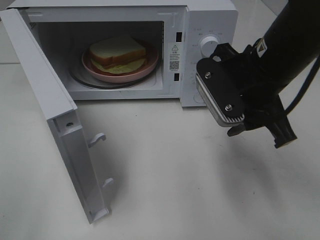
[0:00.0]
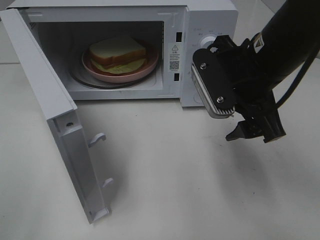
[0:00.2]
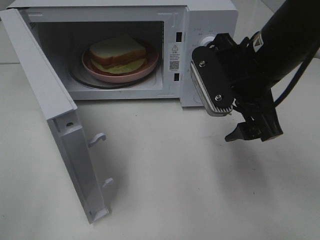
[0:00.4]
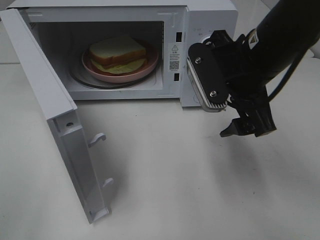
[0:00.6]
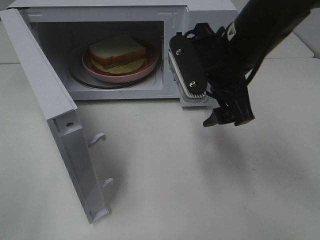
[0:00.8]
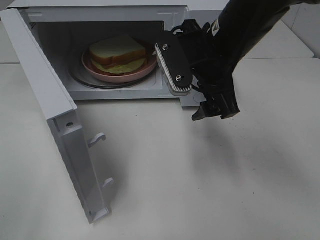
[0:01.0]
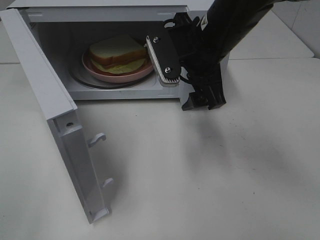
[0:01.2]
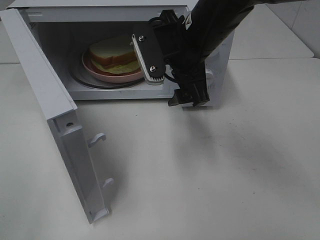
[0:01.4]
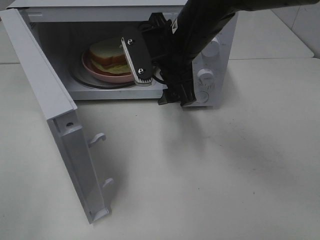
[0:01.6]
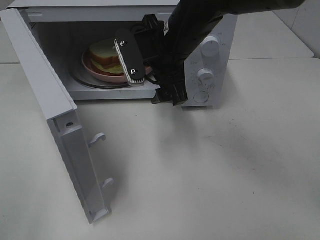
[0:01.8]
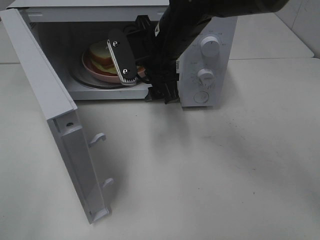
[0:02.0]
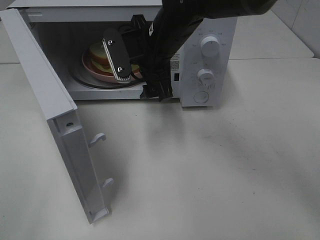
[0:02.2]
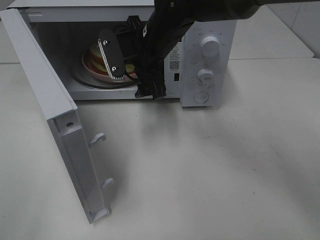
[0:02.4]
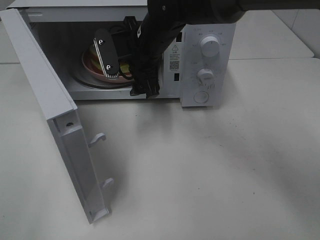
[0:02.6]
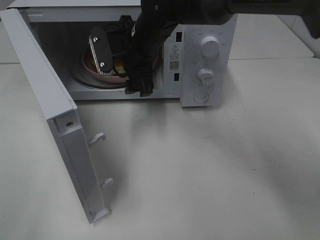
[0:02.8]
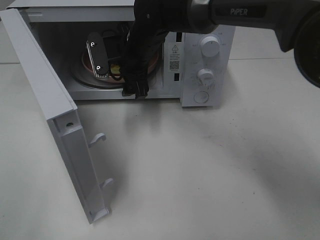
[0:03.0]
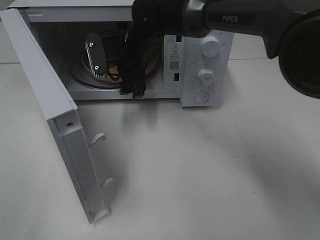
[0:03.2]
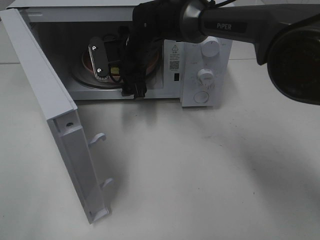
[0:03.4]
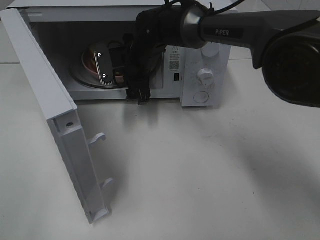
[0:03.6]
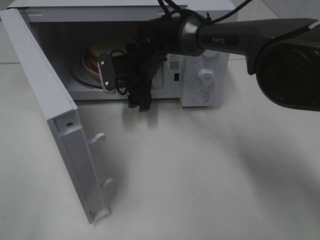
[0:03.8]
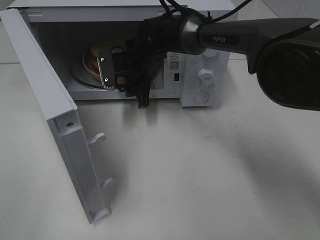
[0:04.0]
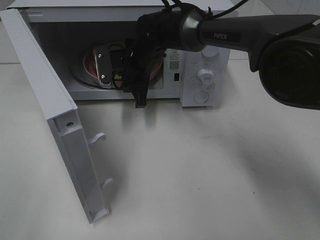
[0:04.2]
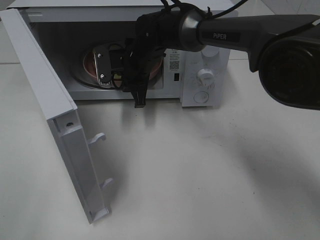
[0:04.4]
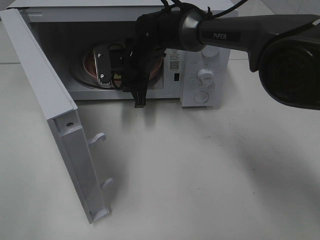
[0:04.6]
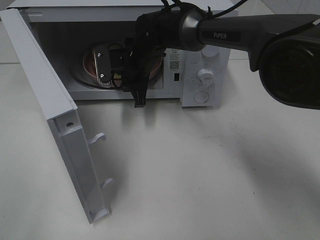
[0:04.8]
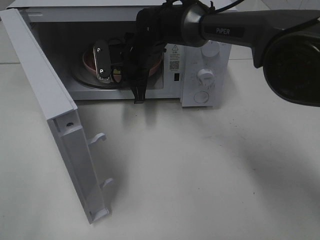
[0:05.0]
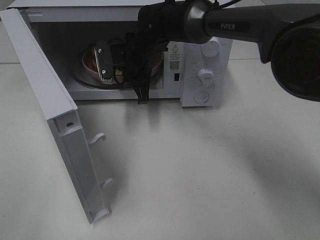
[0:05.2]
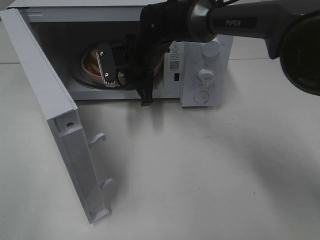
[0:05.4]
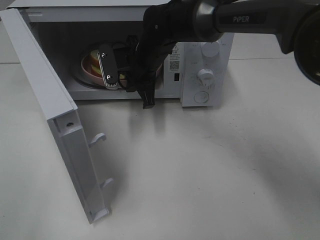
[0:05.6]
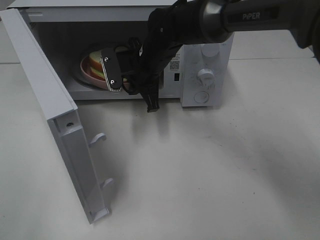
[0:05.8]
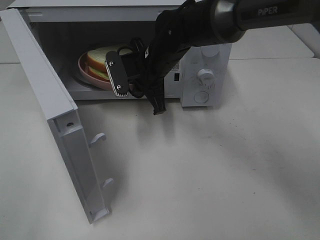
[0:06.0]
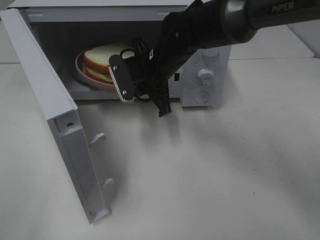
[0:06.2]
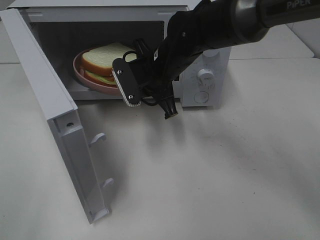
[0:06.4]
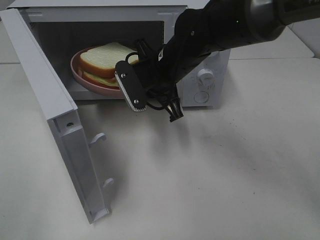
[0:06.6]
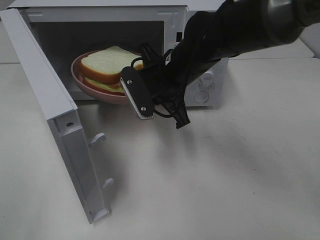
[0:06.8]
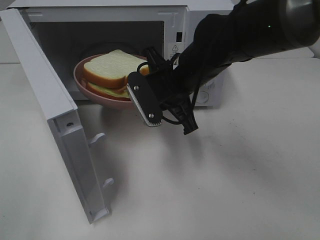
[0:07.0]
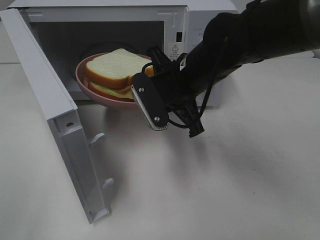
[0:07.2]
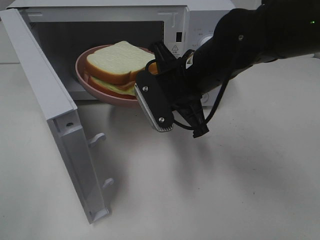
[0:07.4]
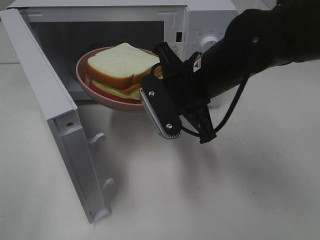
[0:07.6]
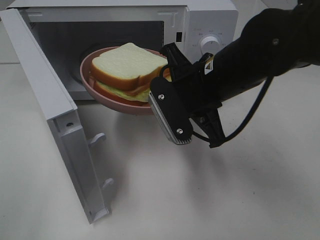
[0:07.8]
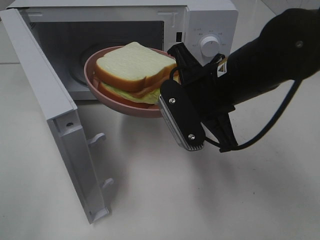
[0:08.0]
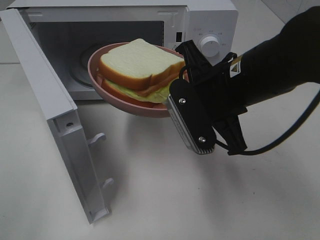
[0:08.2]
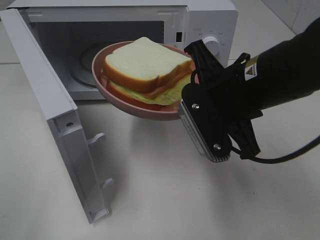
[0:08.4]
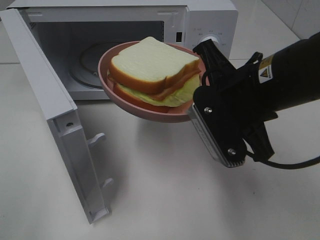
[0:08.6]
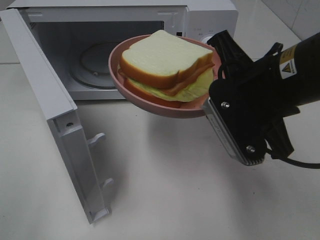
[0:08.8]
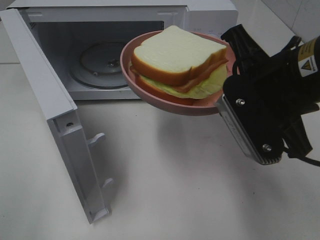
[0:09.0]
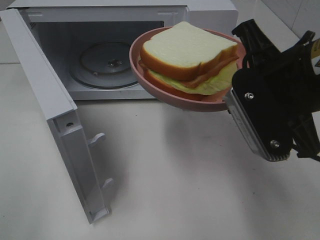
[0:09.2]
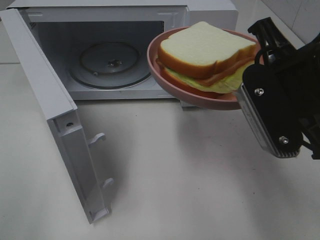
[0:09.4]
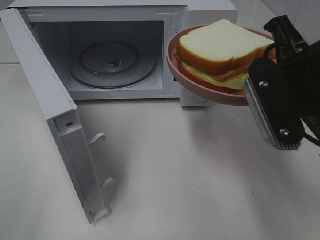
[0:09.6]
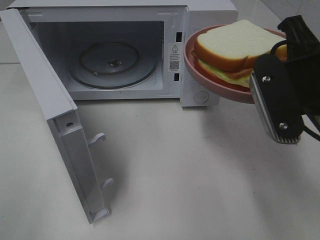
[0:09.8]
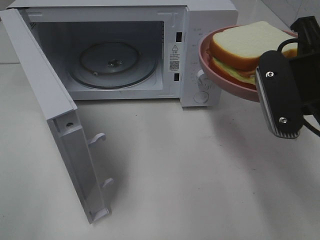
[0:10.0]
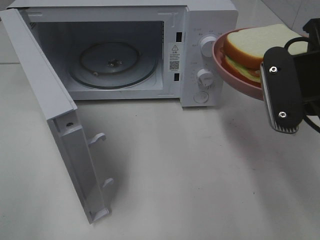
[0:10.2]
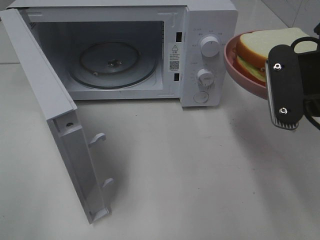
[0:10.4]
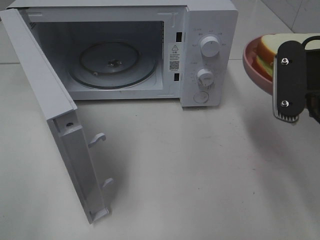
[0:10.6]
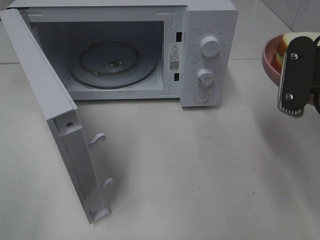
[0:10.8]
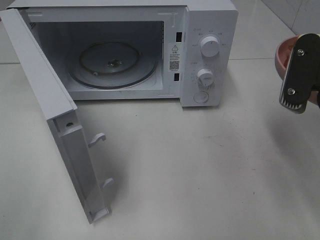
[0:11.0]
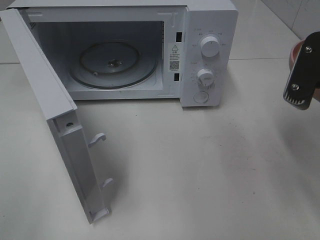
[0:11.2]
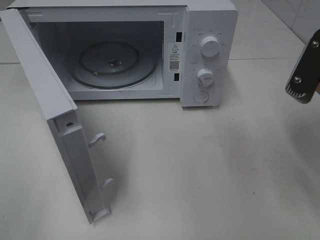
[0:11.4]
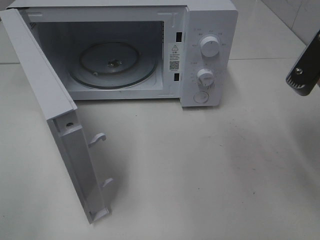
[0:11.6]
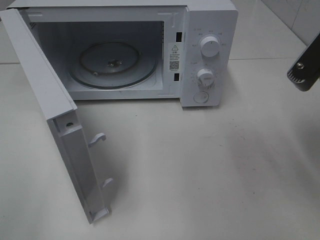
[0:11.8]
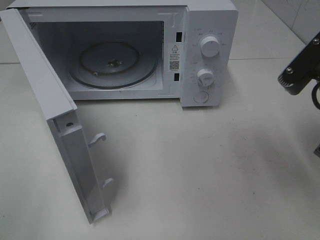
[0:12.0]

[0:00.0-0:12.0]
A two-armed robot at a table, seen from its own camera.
Task of the whole recording: Heat Sandwich.
Step, 0:00.0 to 0:04.4: Right hand: grab the plate with the sandwich.
0:00.0 to 0:01.6: The right gripper travels to the left and forward by some 10 cm.
0:01.6 to 0:03.0: The right gripper moves forward and to the left, approximately 10 cm.
0:03.0 to 0:04.4: The right gripper shifts by some 5 cm, and closes.
0:04.4 to 0:06.0: The right gripper shifts roughly 5 cm backward.
0:06.0 to 0:07.6: The right gripper moves backward and to the right, roughly 15 cm.
0:07.6 to 0:09.0: The right gripper shifts approximately 10 cm backward, to the right and upward.
0:09.0 to 0:10.4: The right gripper changes place by approximately 5 cm.

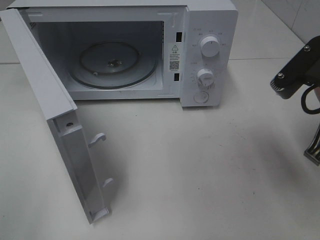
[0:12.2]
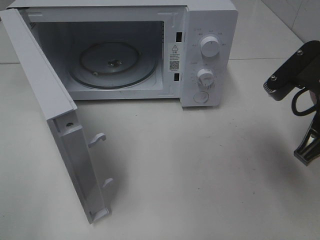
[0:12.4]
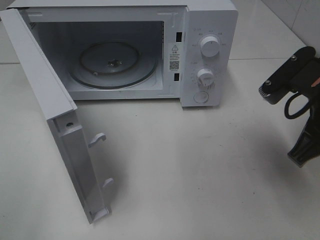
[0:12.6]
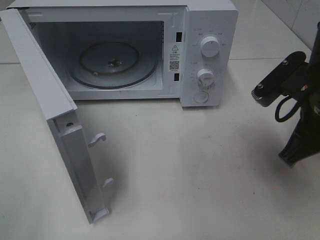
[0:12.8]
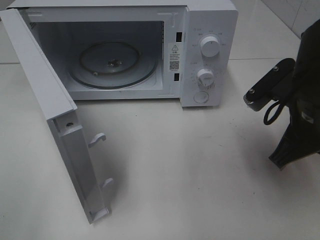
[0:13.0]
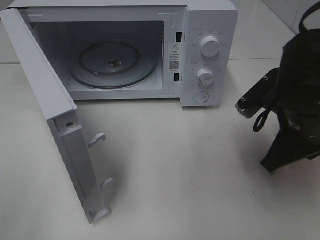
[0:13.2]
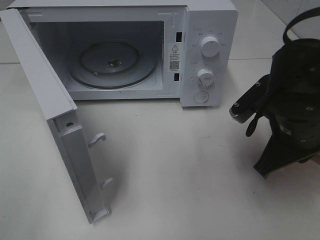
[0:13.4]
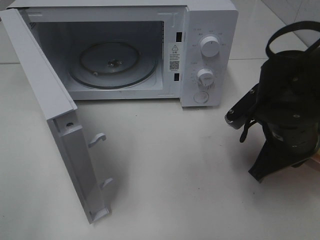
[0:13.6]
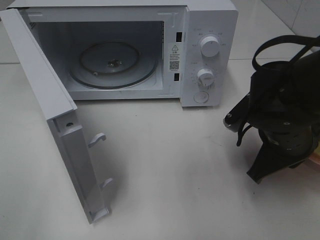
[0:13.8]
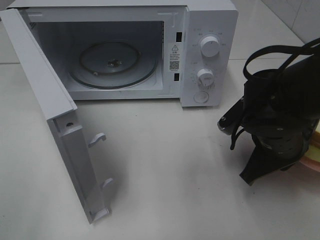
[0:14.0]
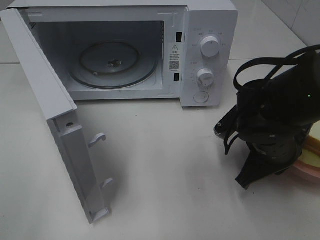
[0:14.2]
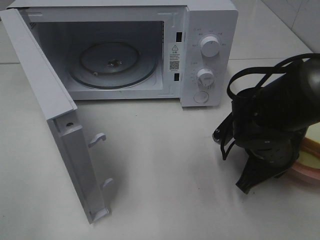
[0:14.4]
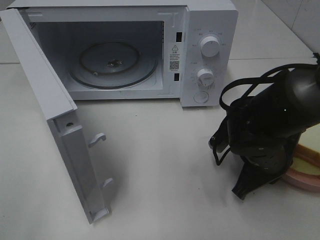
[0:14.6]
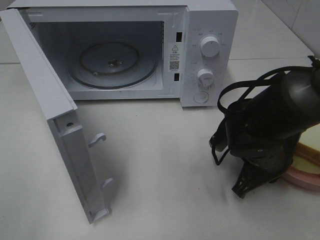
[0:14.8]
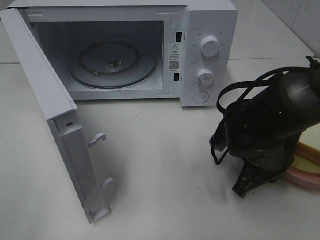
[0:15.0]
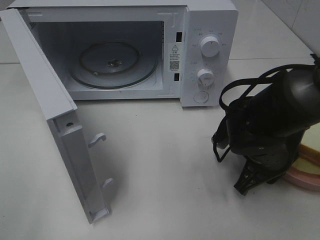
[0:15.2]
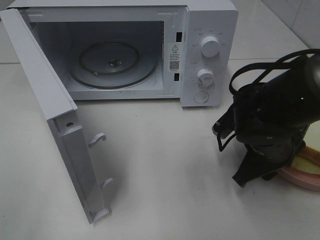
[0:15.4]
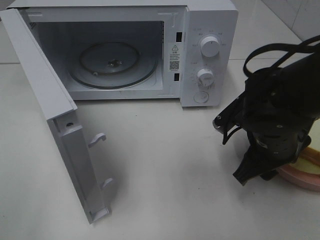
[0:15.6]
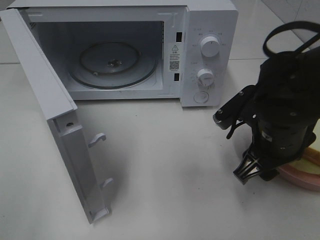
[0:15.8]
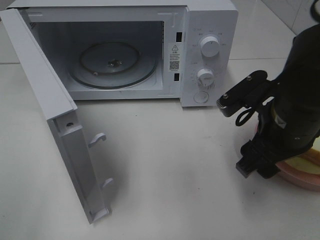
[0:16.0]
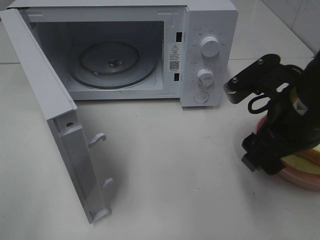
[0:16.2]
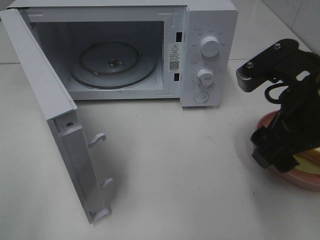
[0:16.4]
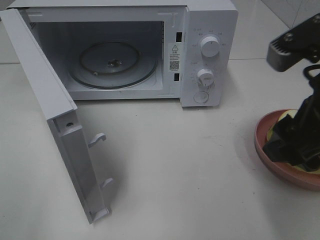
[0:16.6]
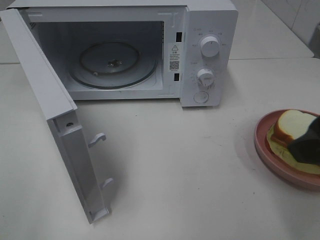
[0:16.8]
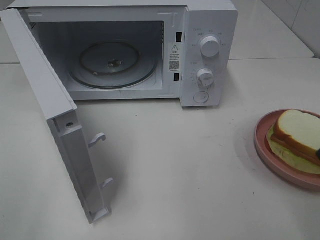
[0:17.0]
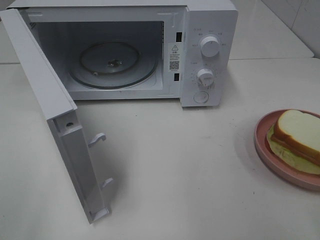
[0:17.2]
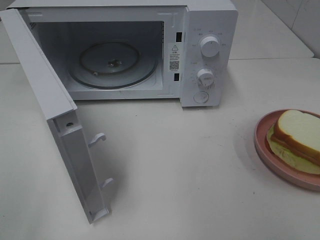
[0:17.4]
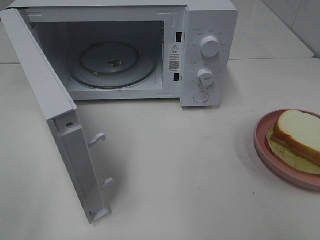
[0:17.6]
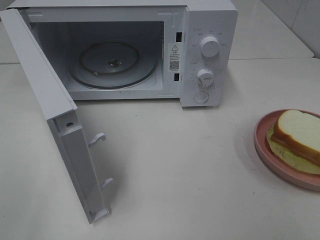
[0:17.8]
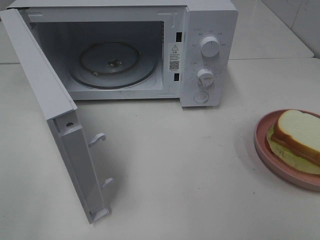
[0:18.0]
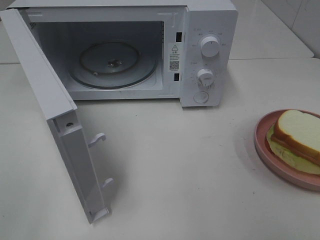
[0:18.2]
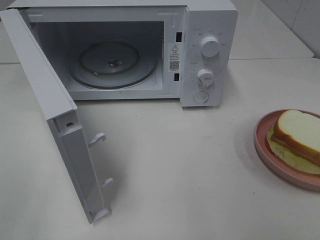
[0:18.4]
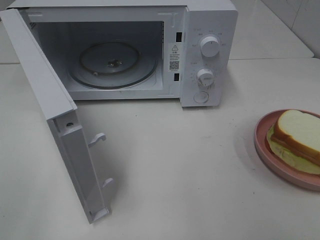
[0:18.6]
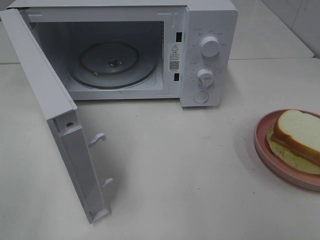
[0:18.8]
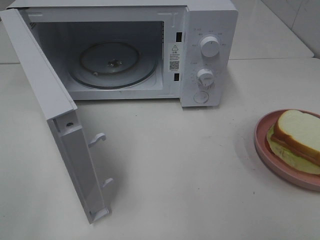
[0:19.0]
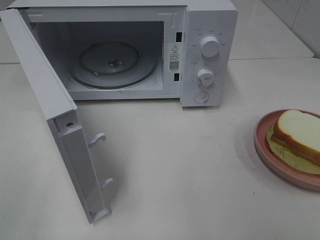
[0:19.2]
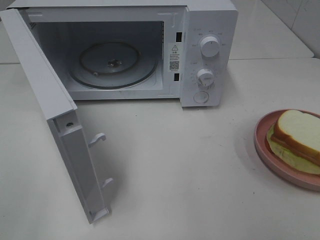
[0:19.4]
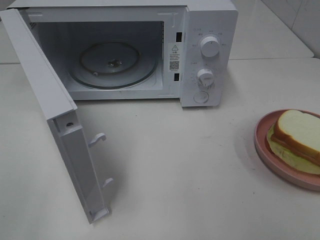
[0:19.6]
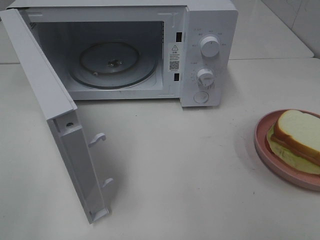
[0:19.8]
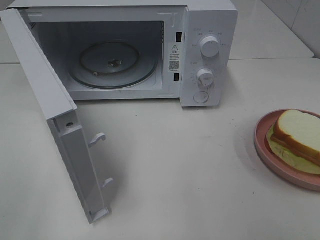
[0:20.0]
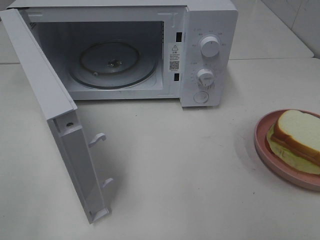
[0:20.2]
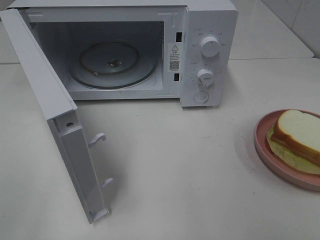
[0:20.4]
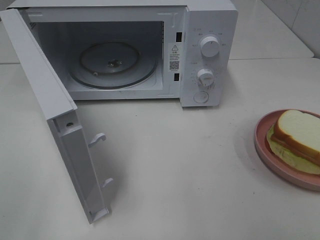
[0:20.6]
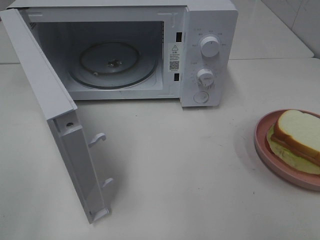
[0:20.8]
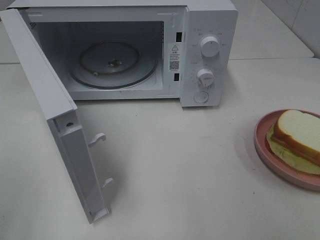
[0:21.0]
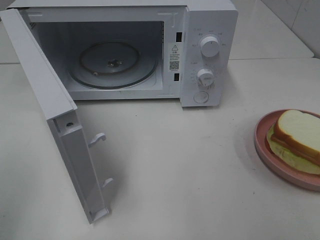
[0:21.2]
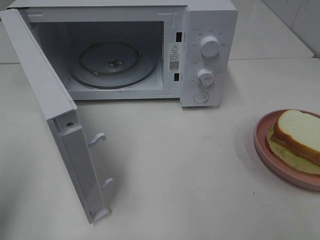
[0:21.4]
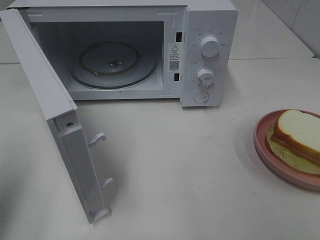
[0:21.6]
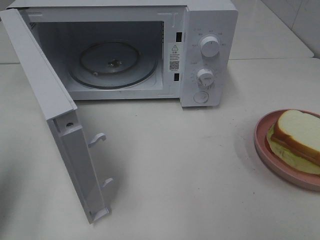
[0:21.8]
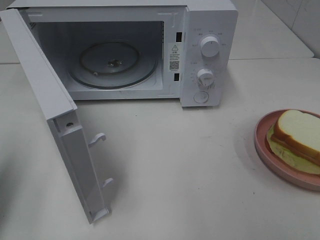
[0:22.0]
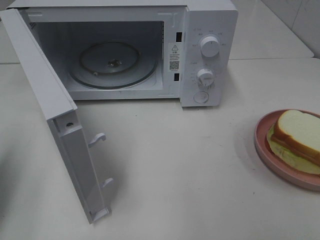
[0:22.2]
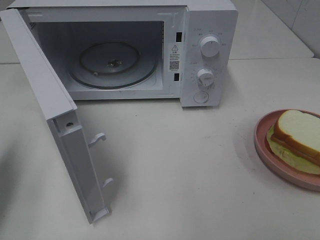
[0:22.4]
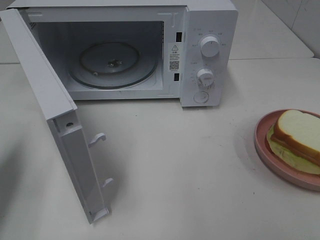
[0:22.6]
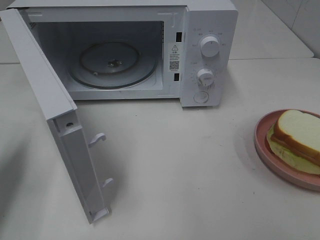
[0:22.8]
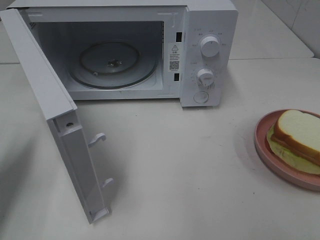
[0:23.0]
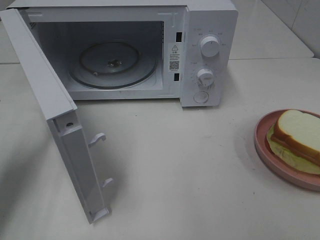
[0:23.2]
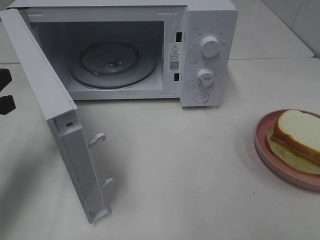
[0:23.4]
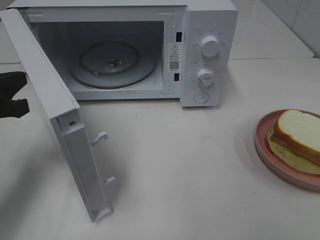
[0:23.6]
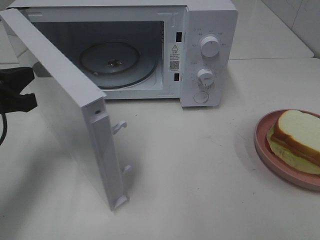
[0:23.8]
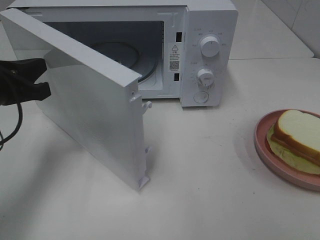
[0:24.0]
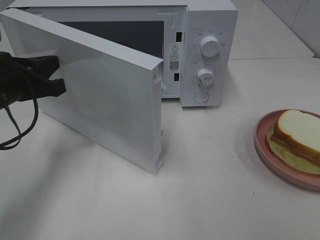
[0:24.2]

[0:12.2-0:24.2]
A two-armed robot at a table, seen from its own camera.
Task of the whole recording: Heat Sandwich.
Step, 0:12.2 to 0:16.8: Right hand: place the plate on the table.
0:12.2 to 0:13.8: The right gripper heads downward, covering about 10 cm.
0:13.8 to 0:15.2: The right gripper shifts some 5 cm downward.
0:15.2 to 0:16.6: The right gripper heads upward and backward, covering some 20 cm, and opens its fingers.
0:16.6 to 0:18.2: The right gripper moves backward and to the right, about 20 cm.
0:21.2 to 0:22.6: The left gripper shifts about 15 cm forward and downward, and closes.
0:22.6 to 0:24.2: The left gripper moves to the right and forward, approximately 10 cm.
